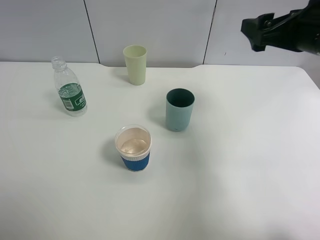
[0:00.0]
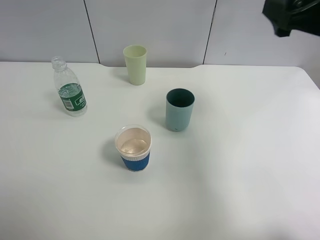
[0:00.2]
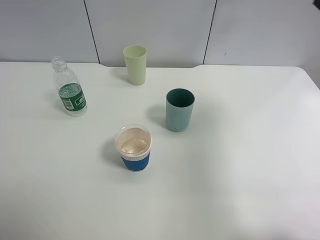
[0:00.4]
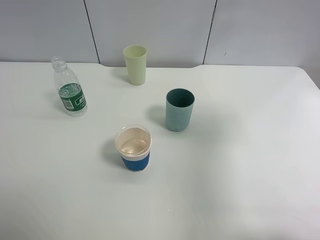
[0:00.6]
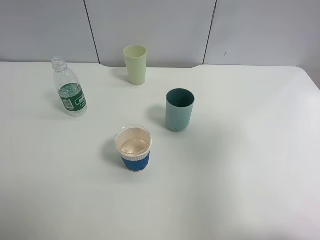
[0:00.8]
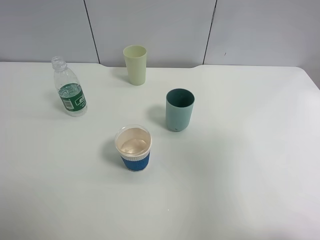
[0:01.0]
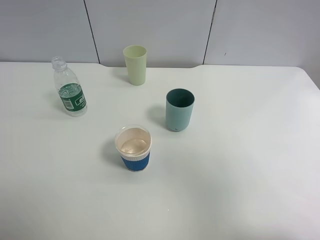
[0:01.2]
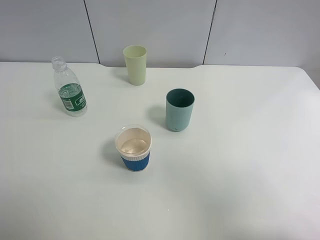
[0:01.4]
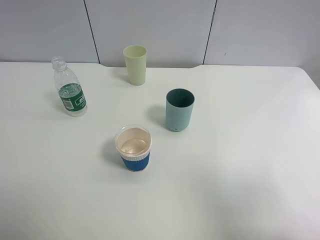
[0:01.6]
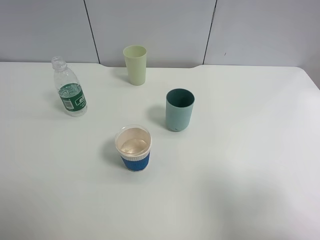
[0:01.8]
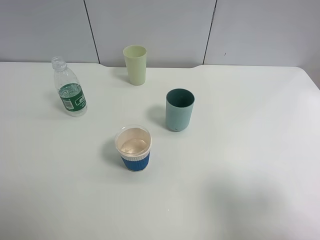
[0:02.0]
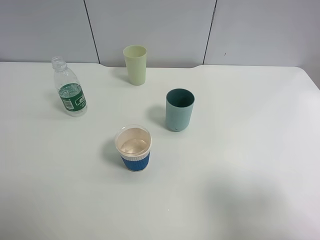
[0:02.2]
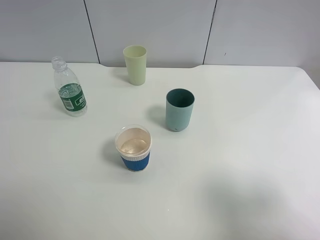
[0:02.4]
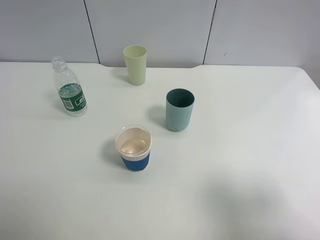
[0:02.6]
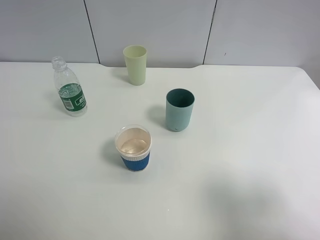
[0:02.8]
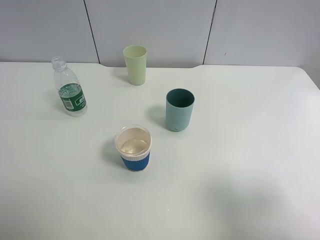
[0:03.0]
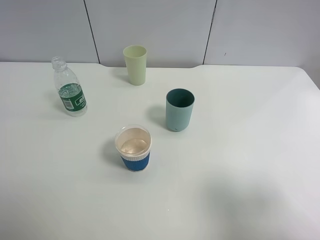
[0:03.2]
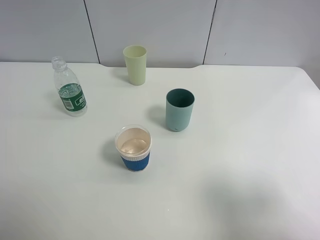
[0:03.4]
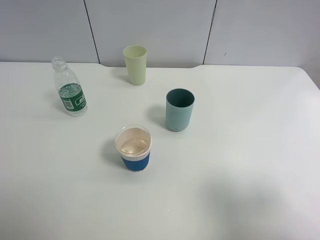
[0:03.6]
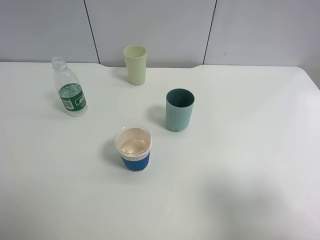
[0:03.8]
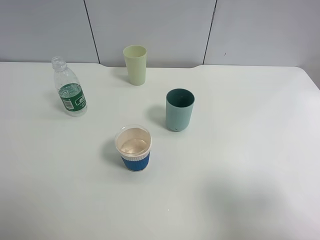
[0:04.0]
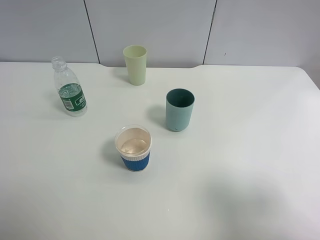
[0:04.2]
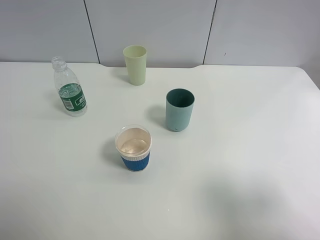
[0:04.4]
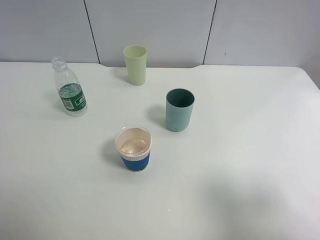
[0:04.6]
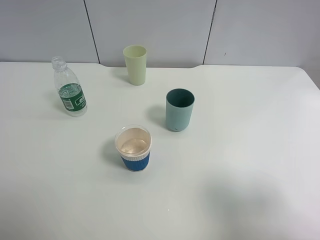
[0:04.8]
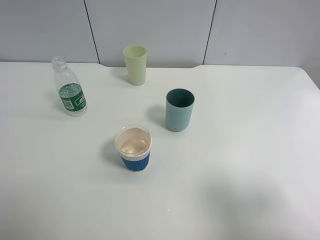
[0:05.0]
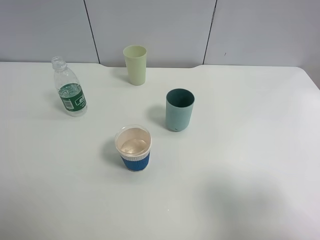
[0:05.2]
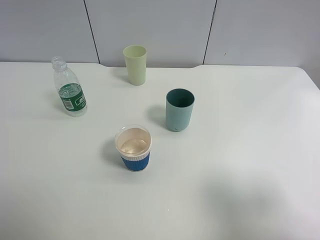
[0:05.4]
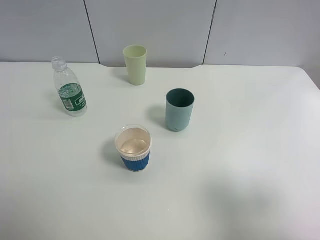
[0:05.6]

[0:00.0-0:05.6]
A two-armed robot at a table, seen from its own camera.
Task of the whole recording: use a clamp to hold the bottle of the drink, pour the beverage into a random cup, then clamp the cup containing the drink and pour the drink into another random cup.
0:00.0 to 0:01.4: The right gripper heads backward, covering approximately 25 cm.
0:01.4 to 0:02.8: The right gripper shifts some 5 cm downward.
0:02.8 to 0:05.6: Both grippers stay about where they are.
